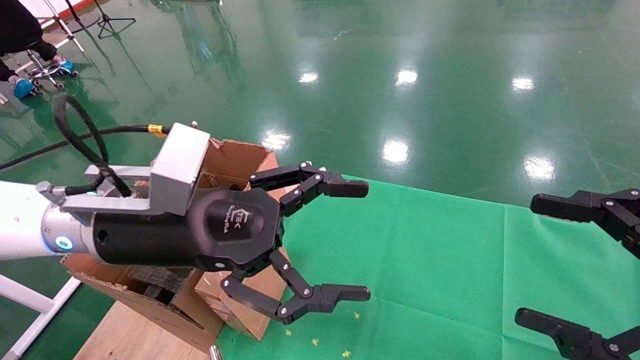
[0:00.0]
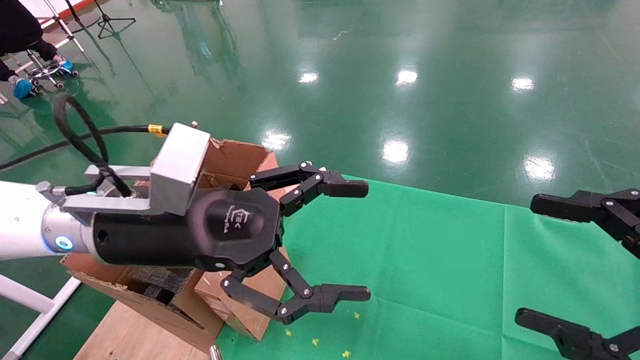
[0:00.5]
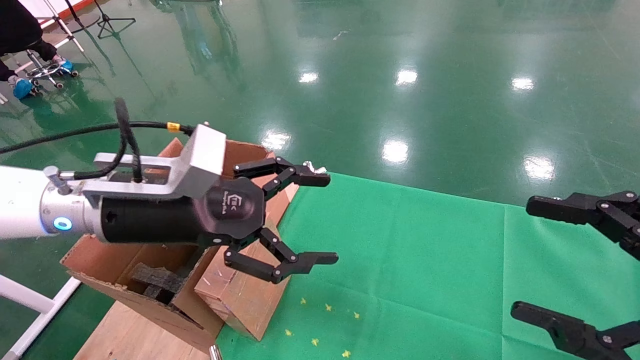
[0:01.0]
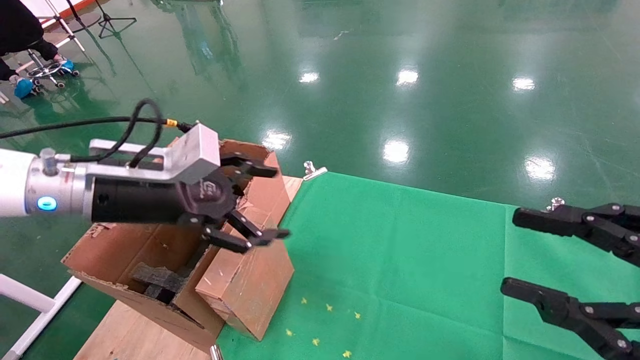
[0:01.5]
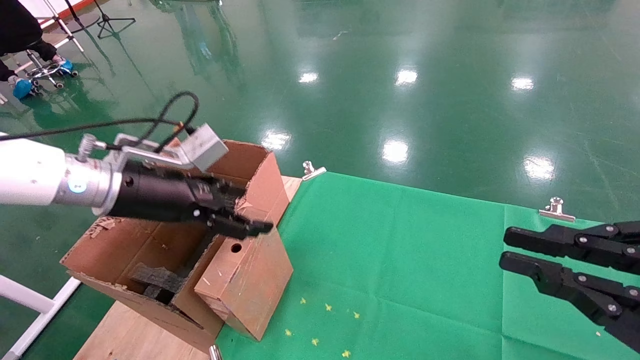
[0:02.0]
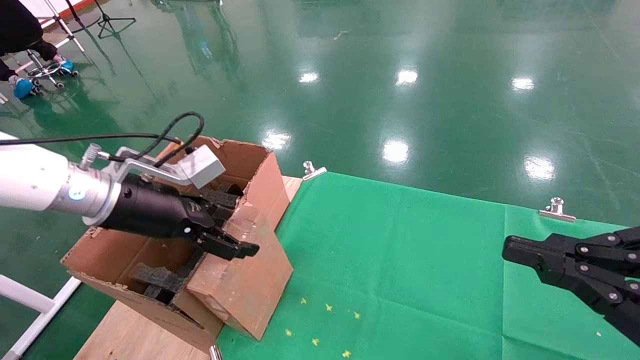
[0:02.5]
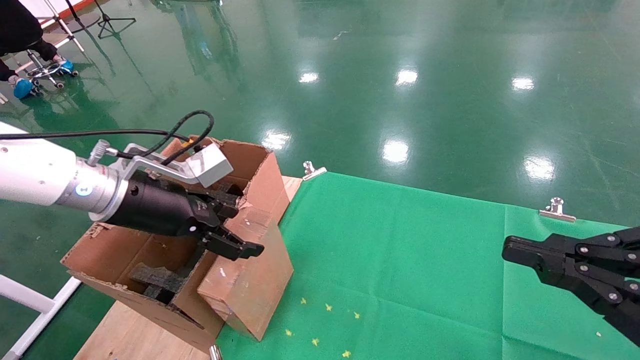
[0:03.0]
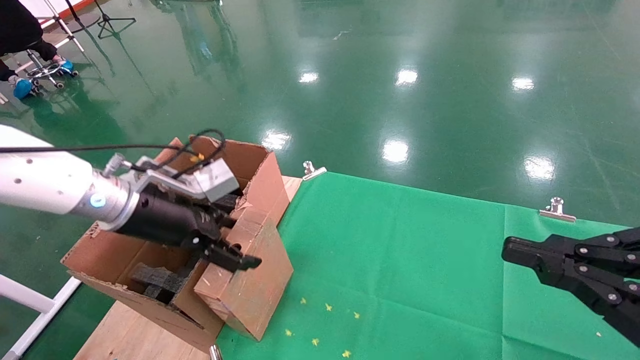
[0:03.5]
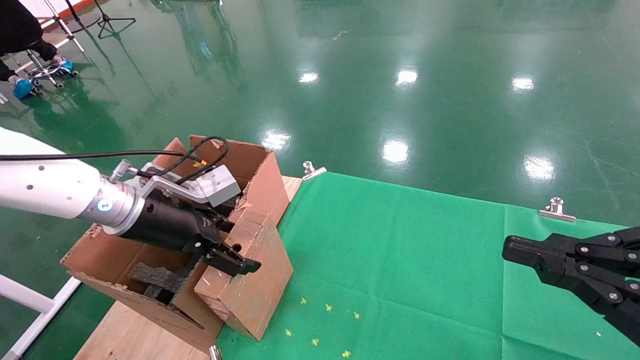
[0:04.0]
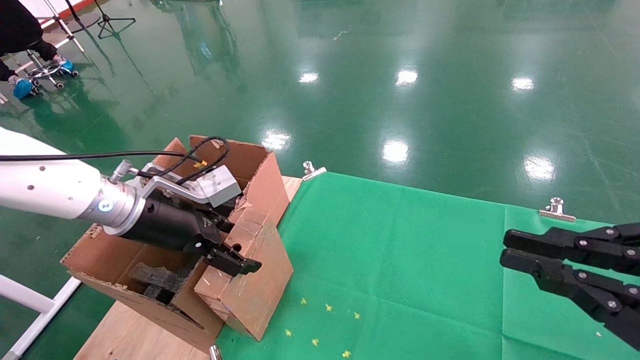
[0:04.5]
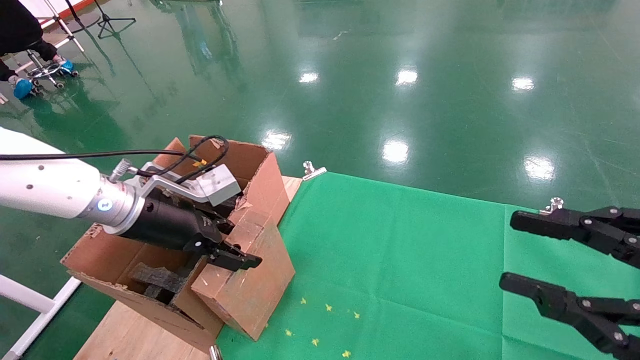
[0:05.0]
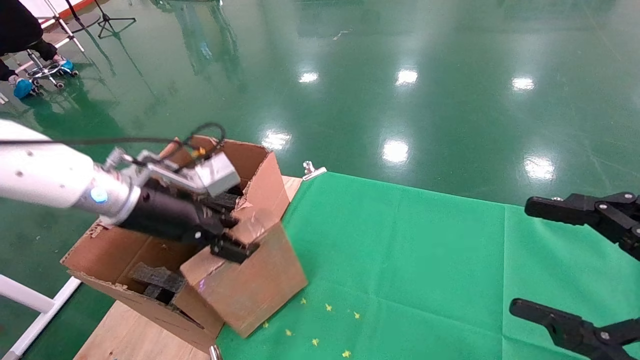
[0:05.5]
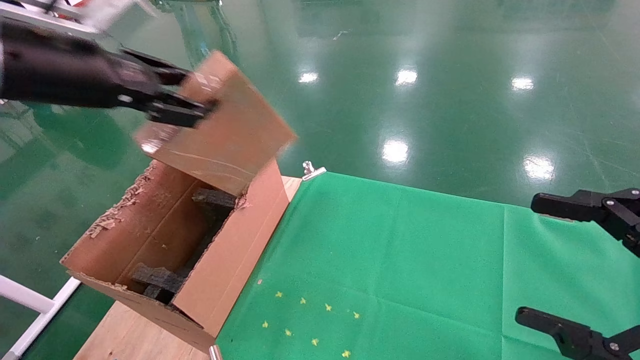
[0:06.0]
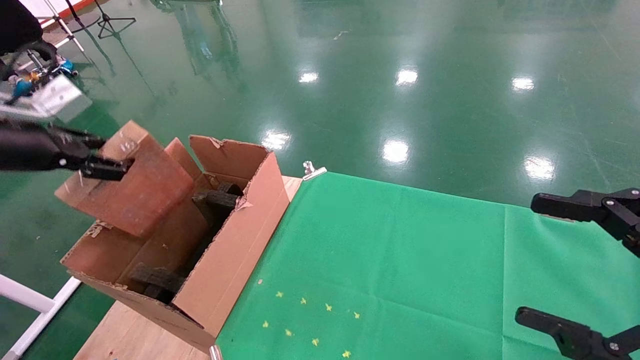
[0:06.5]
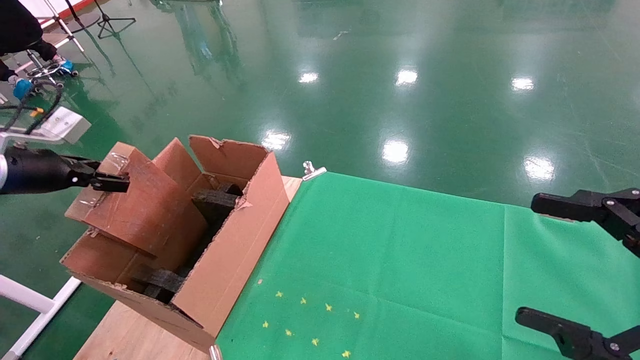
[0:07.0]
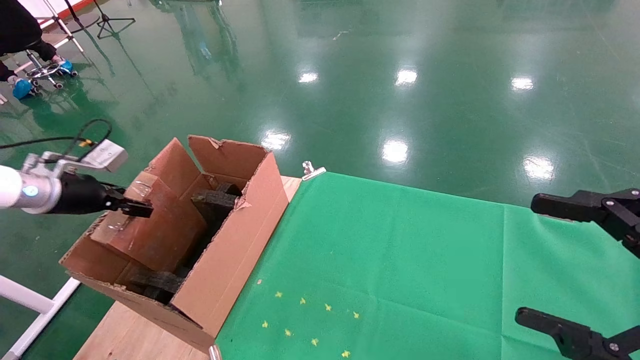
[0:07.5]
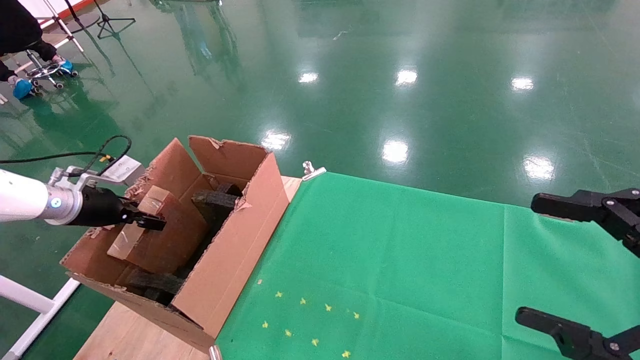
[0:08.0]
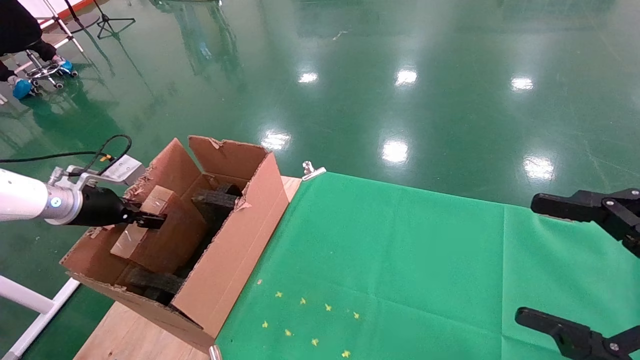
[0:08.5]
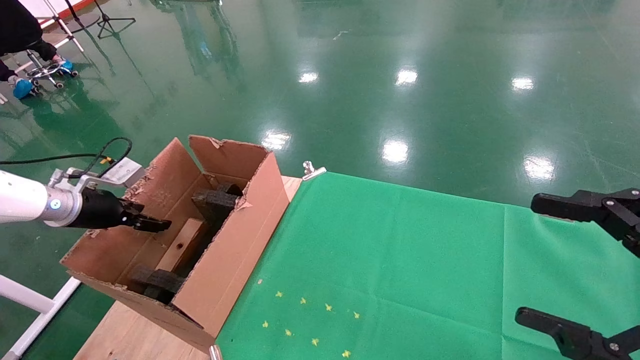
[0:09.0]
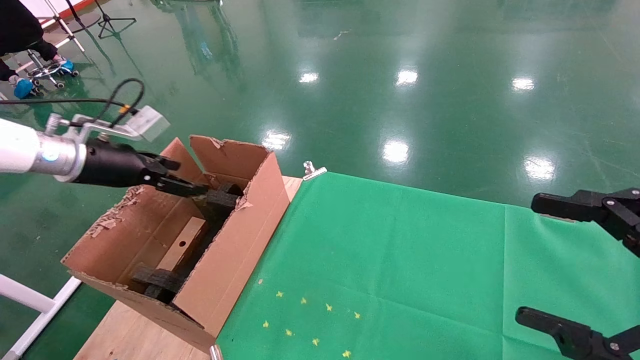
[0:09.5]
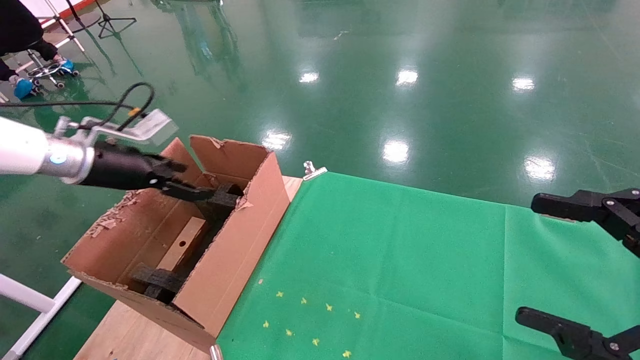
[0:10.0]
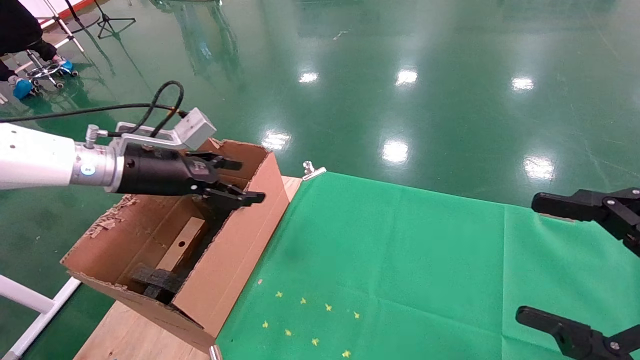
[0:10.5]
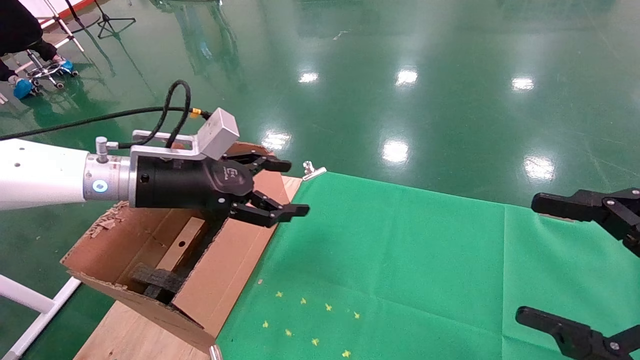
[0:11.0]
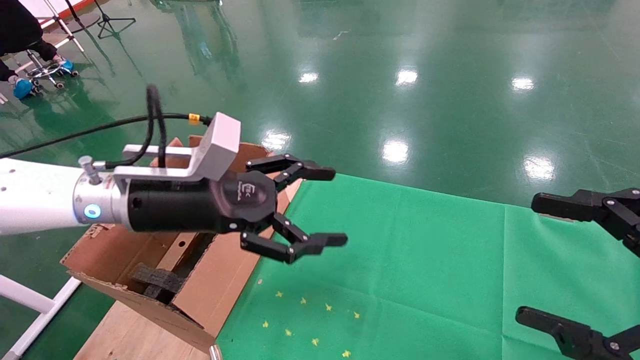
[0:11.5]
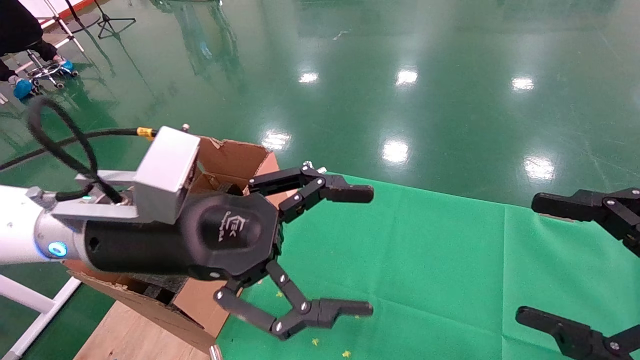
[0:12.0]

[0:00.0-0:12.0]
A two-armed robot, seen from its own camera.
Task of the whole recording: using a robotic arm to pick up a cardboard box and palace it the carton.
Step, 0:01.5 to 0:05.0: Pick up the mouse and the power cord paper box.
Step, 0:05.5 to 0:08.5: Place the mouse and the power cord paper box into the container.
0:00.0 to 0:02.0: The left gripper shifts roughly 10 cm to the left and forward. The right gripper closes.
0:02.0 to 0:04.0: There are only small adjustments of the grippers.
0:04.0 to 0:06.0: The right gripper opens its fingers; the left gripper shifts about 15 cm upward, and closes its fingers.
0:06.0 to 0:08.0: The left gripper heads downward, to the left and forward, covering roughly 30 cm.
0:08.0 to 0:10.0: The left gripper goes approximately 15 cm to the right and upward, and opens up.
0:10.0 to 0:12.0: The left gripper heads to the right and backward, covering approximately 25 cm.

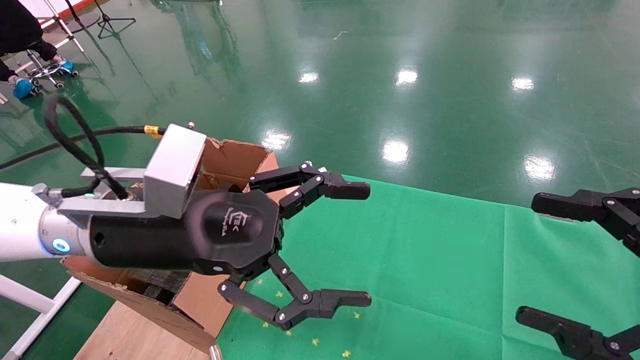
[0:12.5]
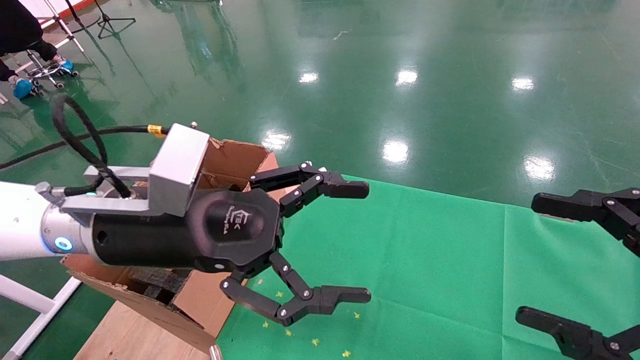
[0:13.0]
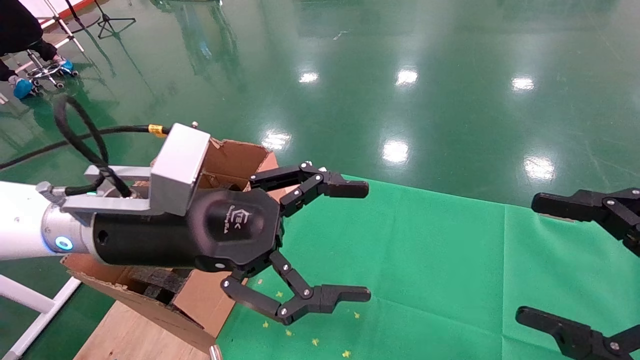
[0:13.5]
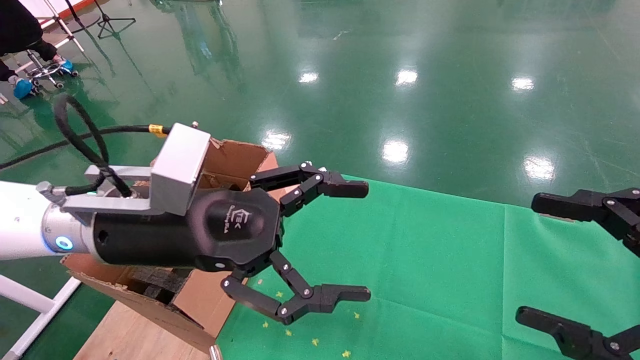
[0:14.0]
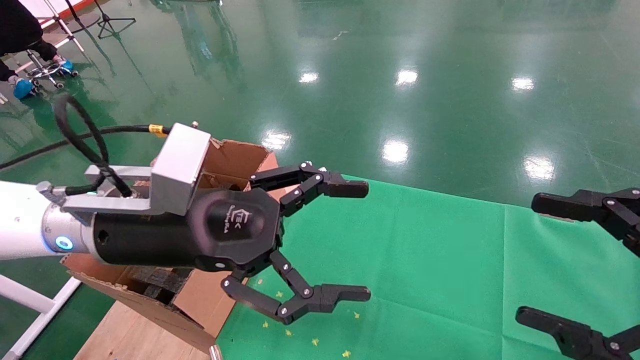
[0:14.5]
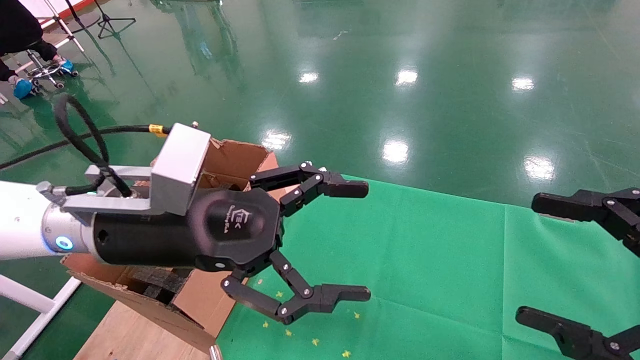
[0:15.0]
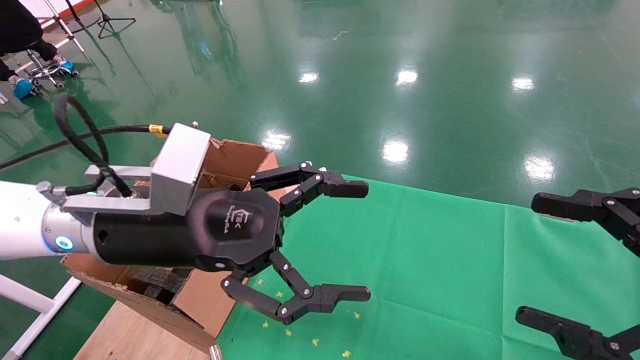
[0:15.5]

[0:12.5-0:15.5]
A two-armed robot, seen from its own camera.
Task of the whole recording: using a robotic arm to pick up a cardboard box and palace it the carton.
0:12.5 to 0:15.5: Both grippers stay about where they are.
